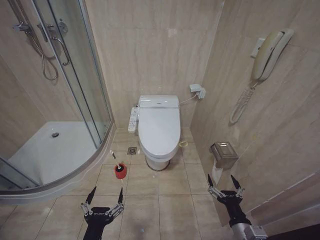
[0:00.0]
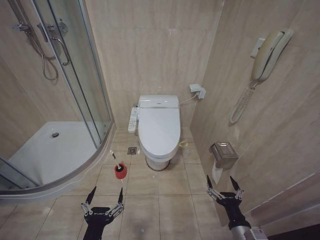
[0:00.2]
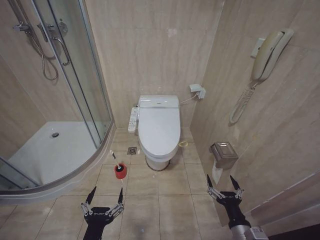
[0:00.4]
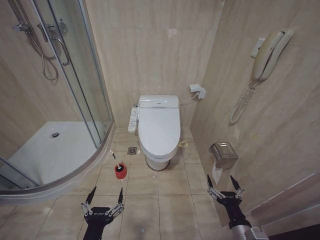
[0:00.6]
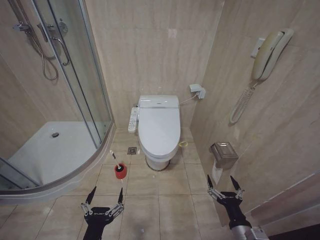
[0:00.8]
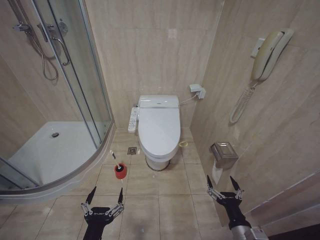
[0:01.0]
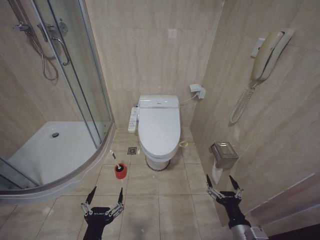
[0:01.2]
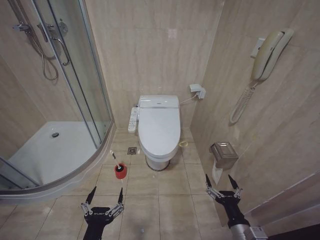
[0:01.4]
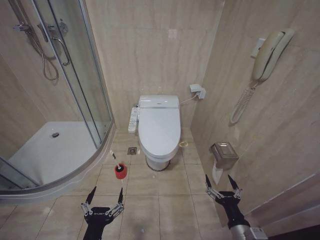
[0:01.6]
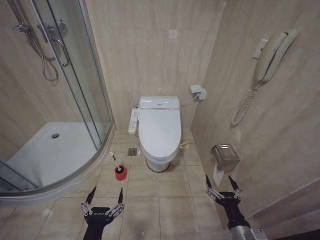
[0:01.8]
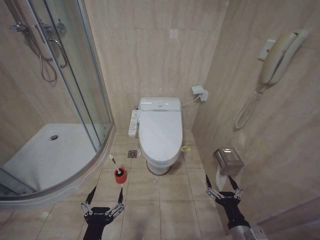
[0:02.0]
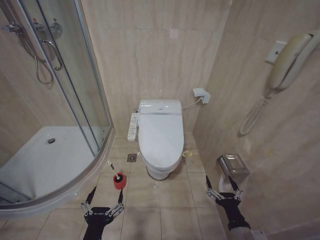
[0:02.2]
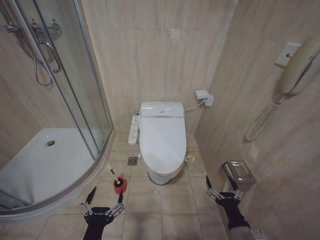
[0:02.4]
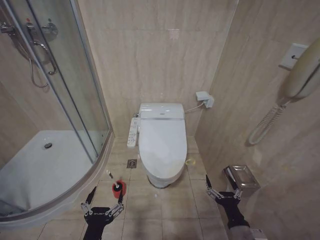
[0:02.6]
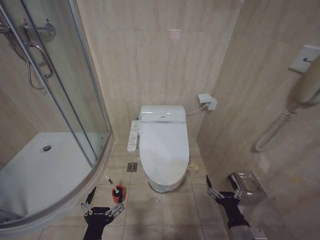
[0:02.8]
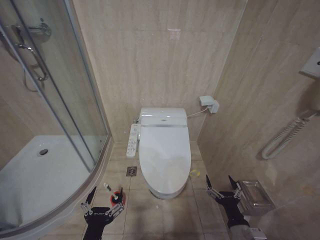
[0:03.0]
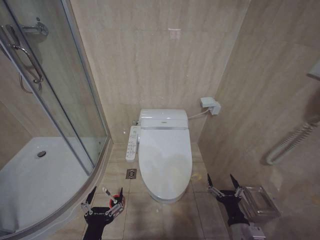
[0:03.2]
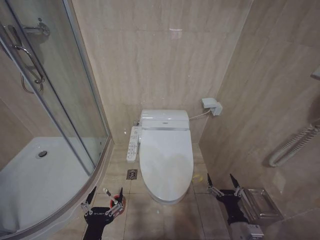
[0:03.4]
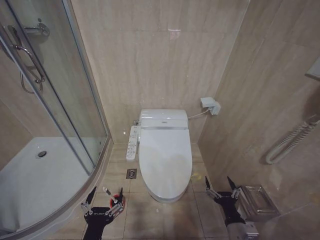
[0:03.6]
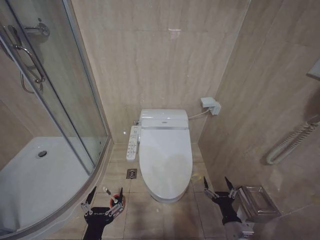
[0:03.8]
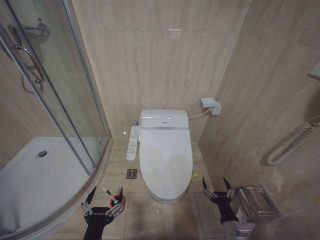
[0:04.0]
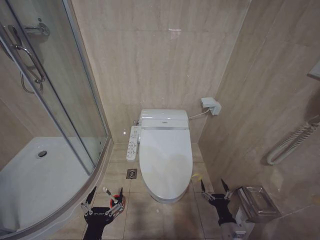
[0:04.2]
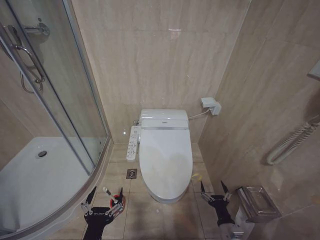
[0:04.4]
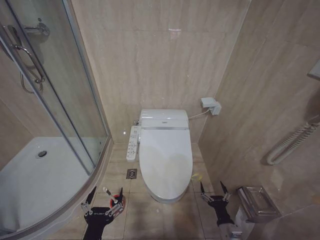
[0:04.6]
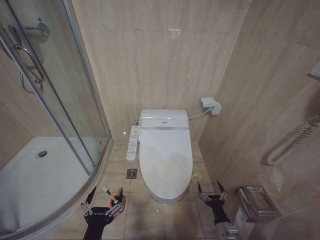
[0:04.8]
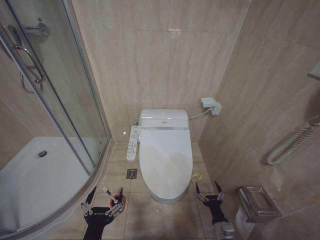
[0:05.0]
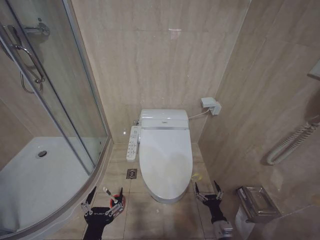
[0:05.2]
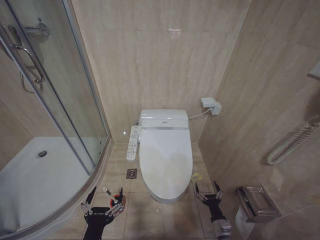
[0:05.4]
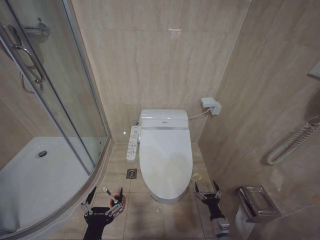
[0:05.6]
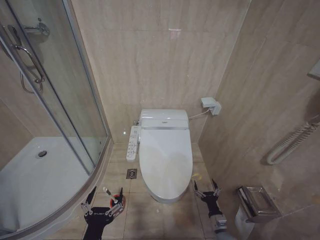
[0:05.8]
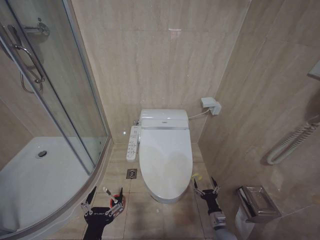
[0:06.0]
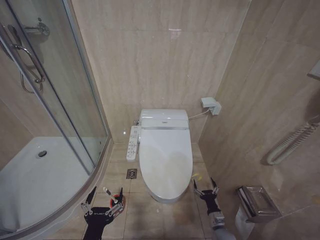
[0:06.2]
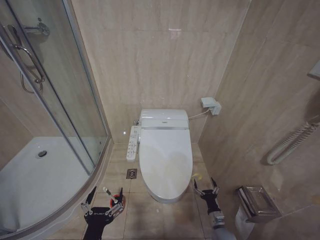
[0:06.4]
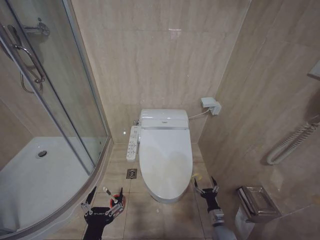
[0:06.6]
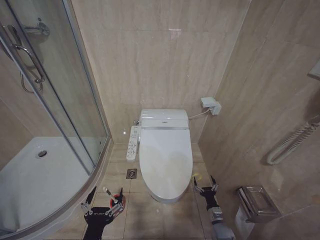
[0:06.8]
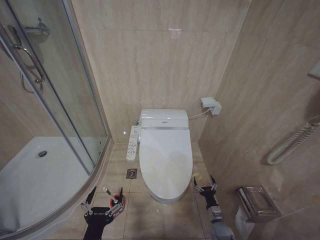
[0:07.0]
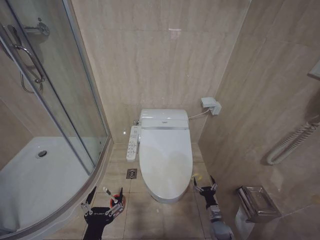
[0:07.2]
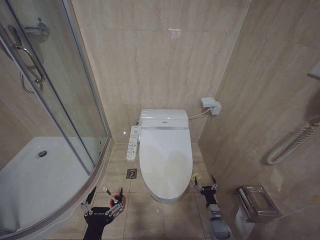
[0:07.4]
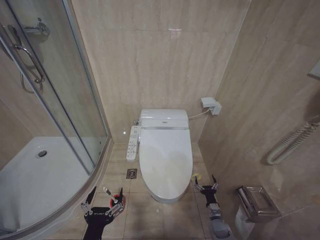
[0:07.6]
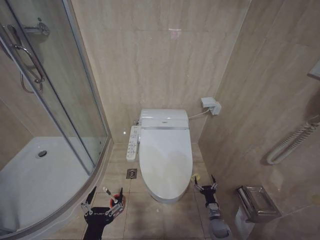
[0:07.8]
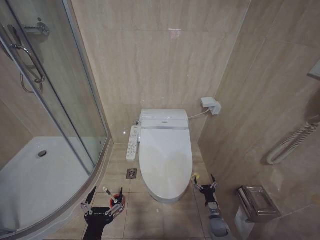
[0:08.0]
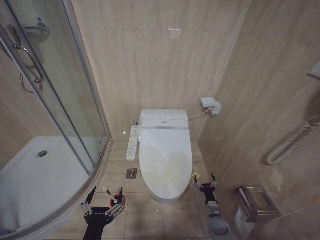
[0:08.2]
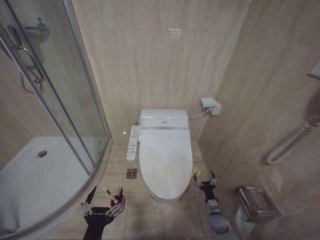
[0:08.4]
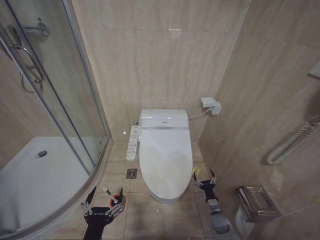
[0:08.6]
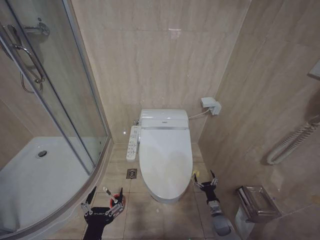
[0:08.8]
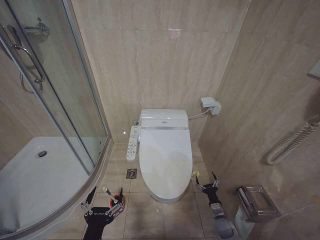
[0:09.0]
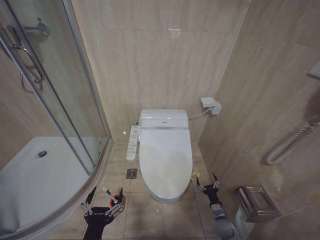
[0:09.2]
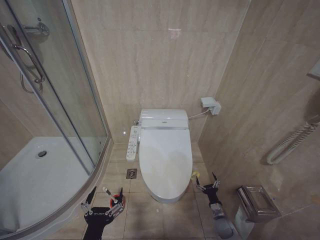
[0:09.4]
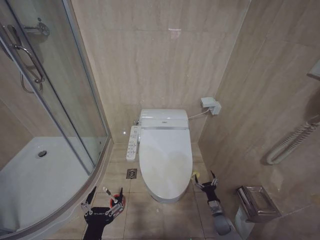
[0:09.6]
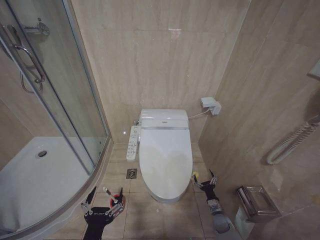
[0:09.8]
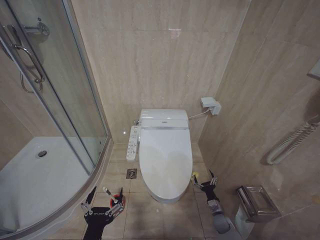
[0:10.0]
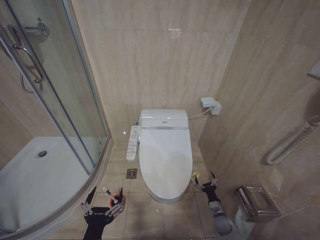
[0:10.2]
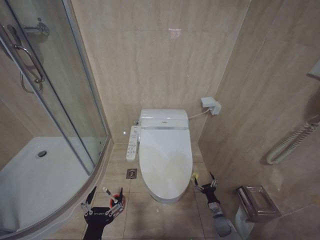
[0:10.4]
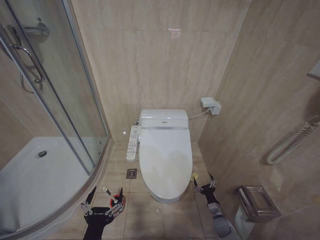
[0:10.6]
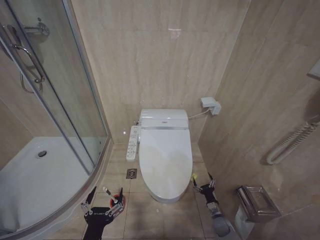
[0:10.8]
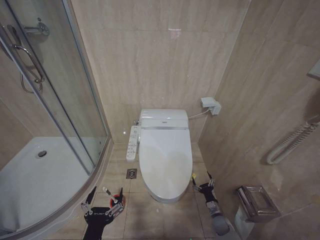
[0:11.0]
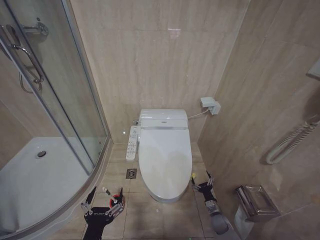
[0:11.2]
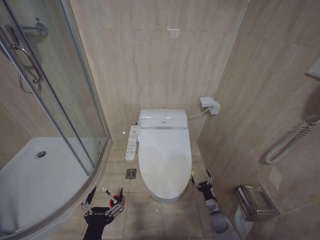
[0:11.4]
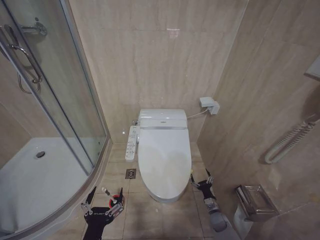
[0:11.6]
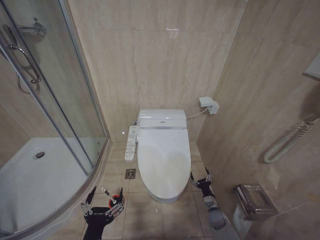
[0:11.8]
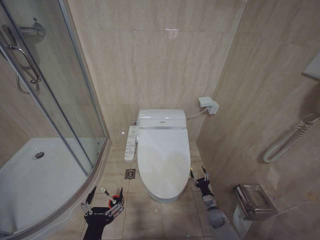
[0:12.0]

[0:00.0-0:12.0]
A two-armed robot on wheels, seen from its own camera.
Task of the whole recording: Open the toilet lid, clean the toilet bowl with a toilet brush, close the toilet lid, and flush.
0:03.0 to 0:04.4: The right gripper goes approximately 10 cm downward.
0:04.4 to 0:06.0: The right gripper heads downward and forward, covering roughly 10 cm.
0:10.4 to 0:12.0: There are only small adjustments of the grippers.

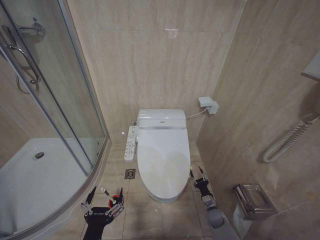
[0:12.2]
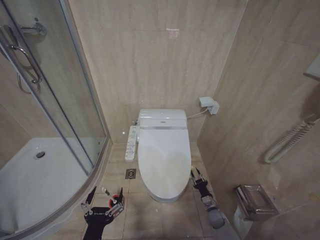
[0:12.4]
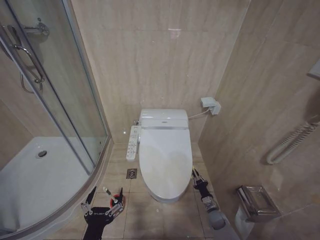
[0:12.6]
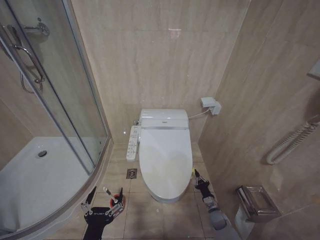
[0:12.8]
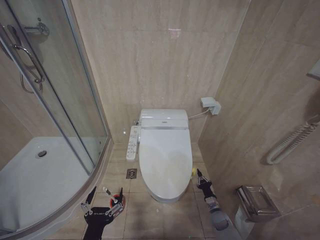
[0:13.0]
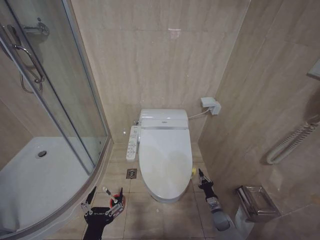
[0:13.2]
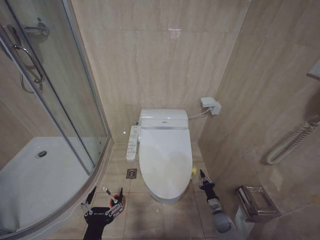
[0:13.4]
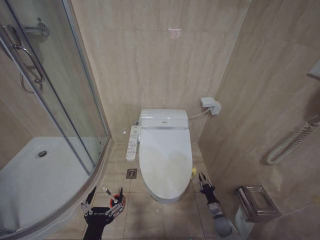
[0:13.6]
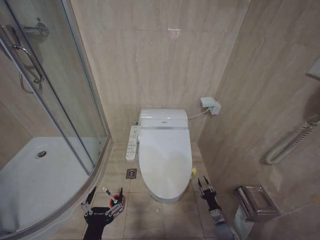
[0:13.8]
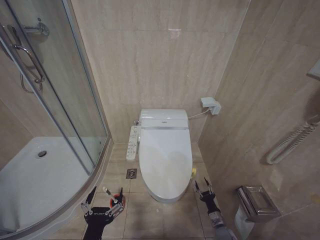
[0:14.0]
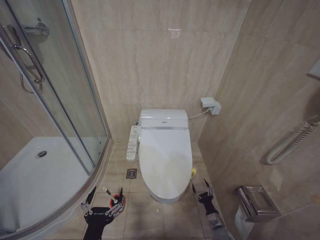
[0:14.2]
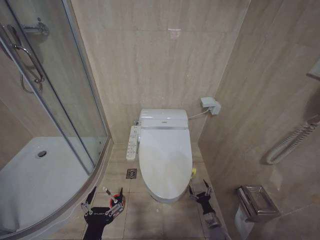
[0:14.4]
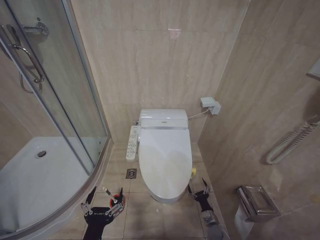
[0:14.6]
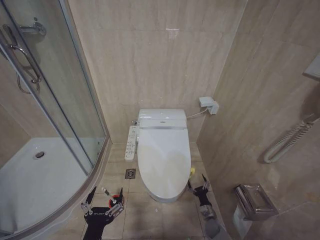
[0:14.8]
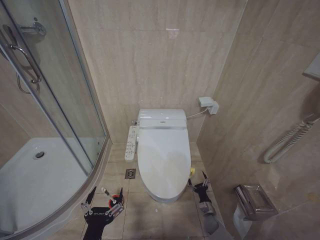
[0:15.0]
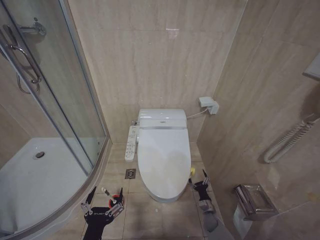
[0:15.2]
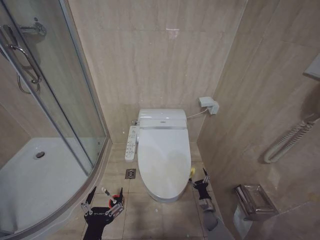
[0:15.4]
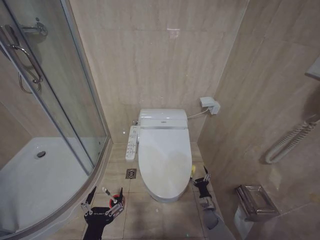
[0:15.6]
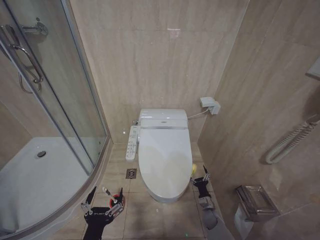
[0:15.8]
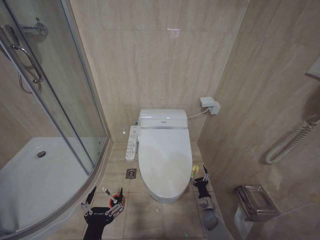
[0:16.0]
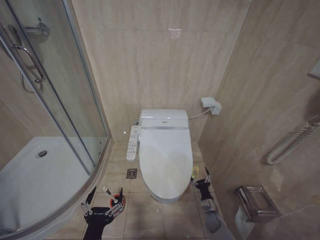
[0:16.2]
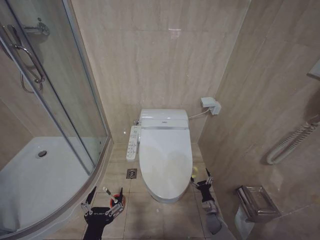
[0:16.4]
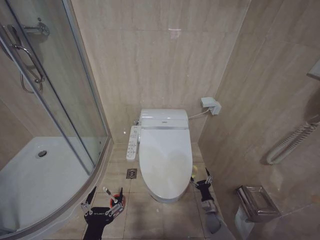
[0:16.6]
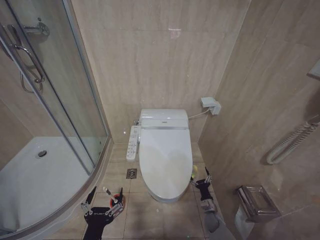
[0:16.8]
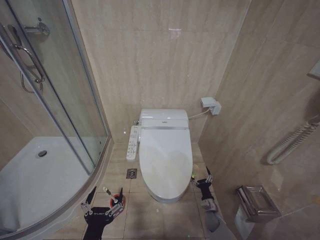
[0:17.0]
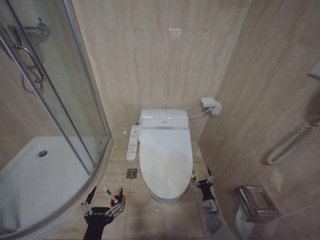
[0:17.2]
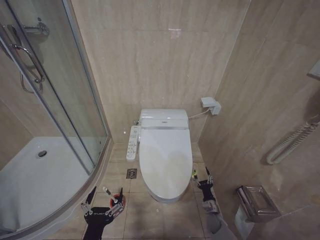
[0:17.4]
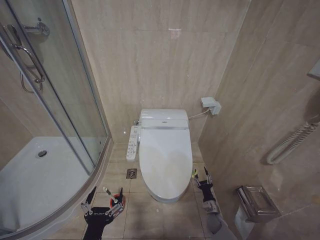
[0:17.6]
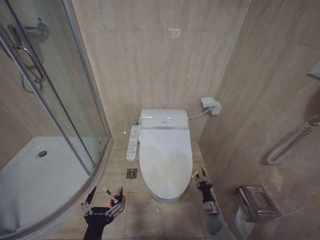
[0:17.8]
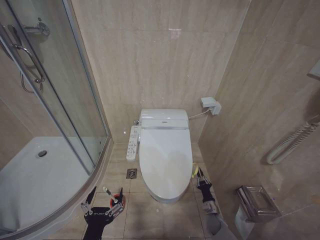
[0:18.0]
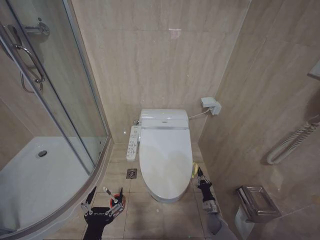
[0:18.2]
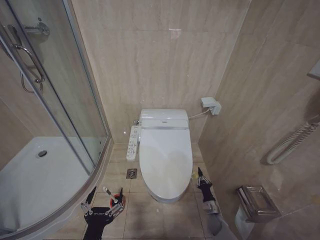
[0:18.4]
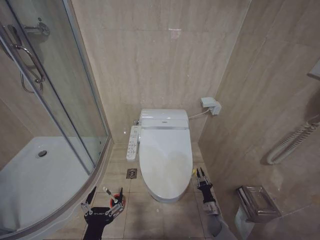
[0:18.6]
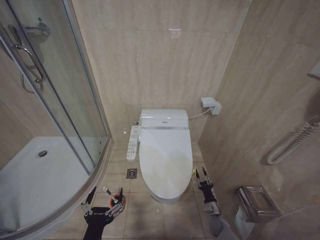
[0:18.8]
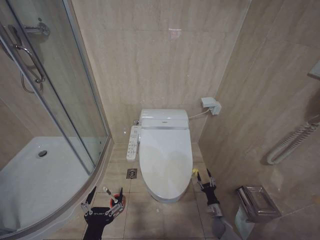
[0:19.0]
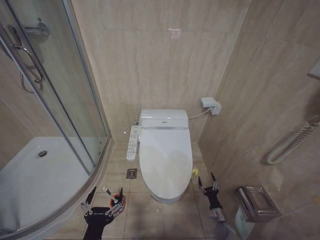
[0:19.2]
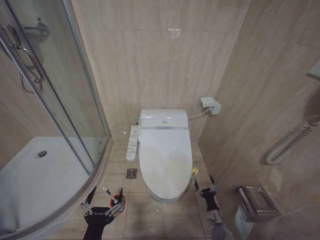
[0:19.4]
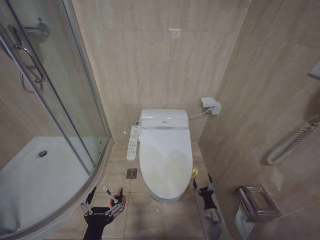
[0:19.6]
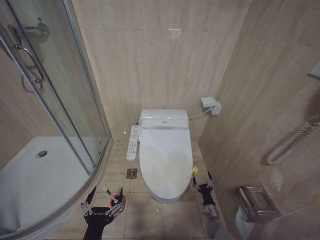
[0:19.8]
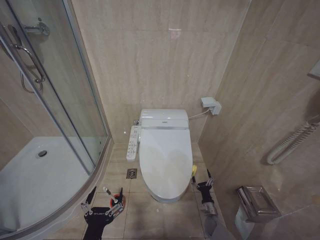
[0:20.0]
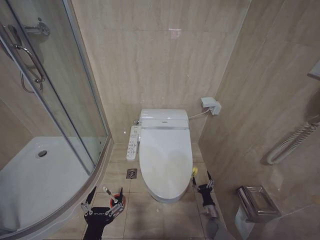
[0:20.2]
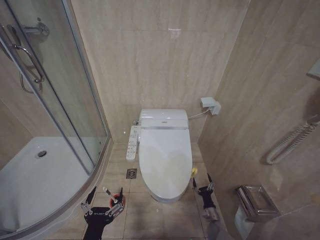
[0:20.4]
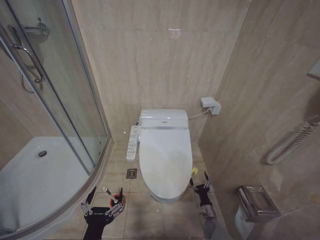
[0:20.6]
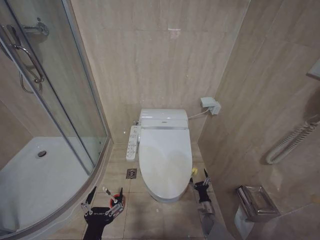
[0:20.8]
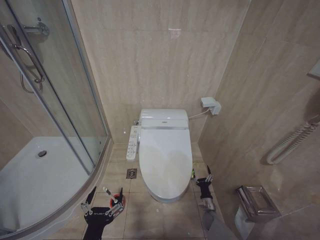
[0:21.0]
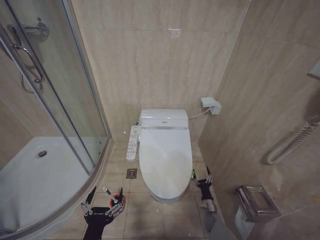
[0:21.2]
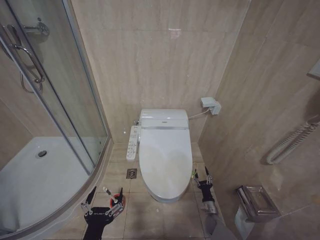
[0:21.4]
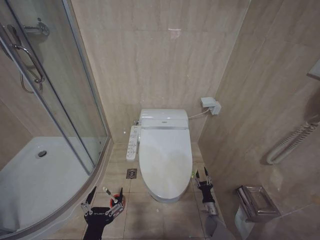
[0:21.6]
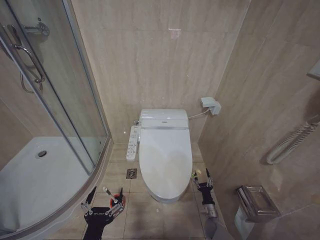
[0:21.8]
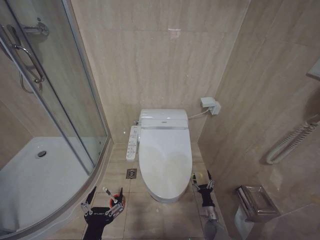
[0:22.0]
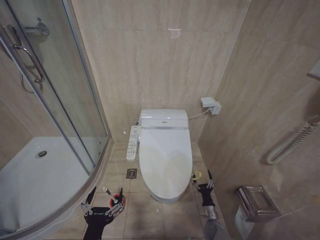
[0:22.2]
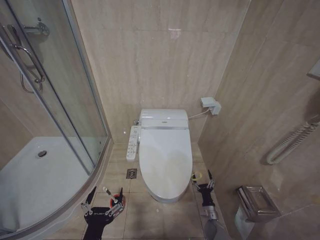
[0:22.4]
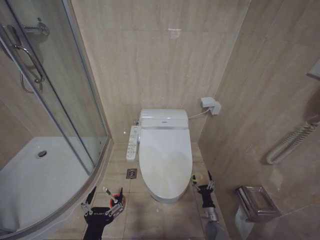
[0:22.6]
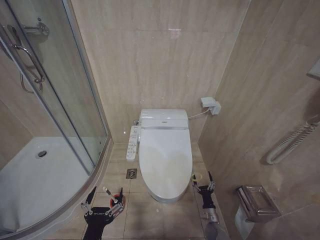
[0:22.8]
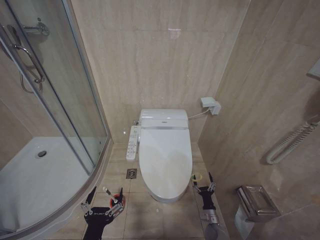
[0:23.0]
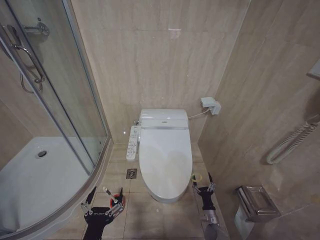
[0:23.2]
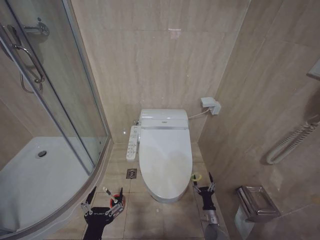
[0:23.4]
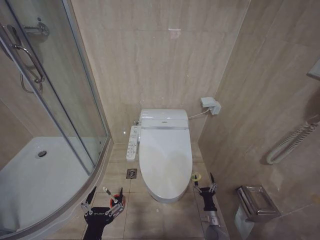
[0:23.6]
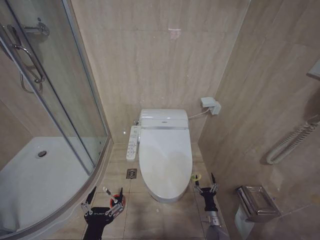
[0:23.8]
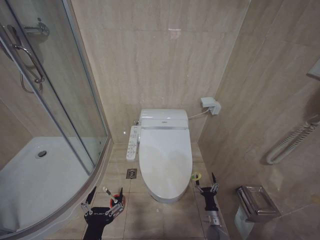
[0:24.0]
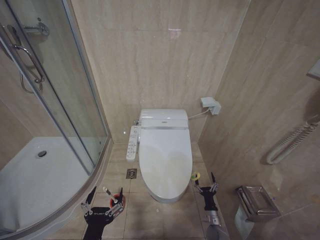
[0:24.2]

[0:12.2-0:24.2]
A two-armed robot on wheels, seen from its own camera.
Task of the whole recording: Open the toilet lid, clean the toilet bowl with a toilet brush, close the toilet lid, and flush.
0:12.2 to 0:13.8: The right gripper travels backward by some 5 cm, and closes.
0:13.8 to 0:15.2: The right gripper changes place by about 5 cm, and opens up.
0:15.2 to 0:16.6: There are only small adjustments of the grippers.
